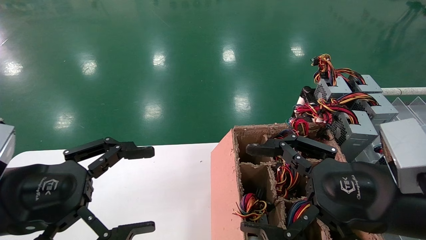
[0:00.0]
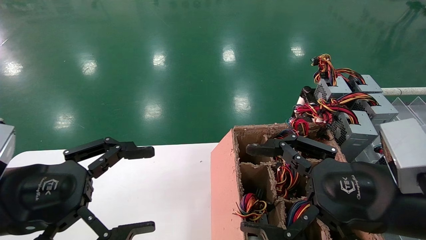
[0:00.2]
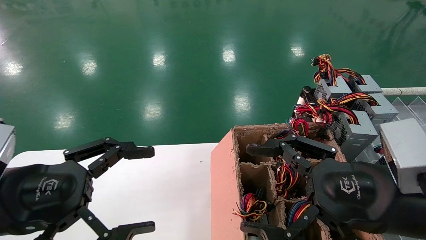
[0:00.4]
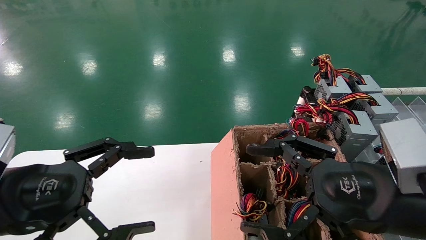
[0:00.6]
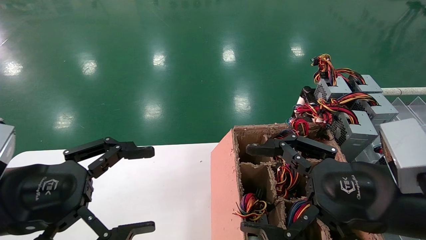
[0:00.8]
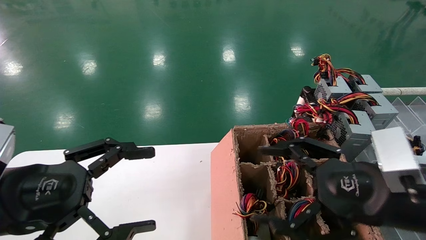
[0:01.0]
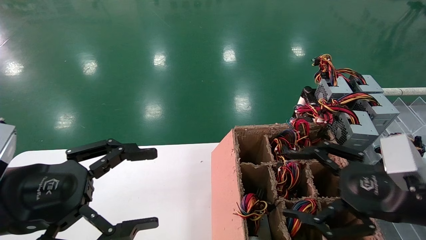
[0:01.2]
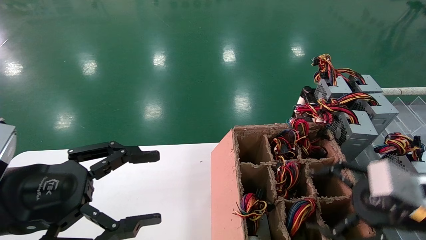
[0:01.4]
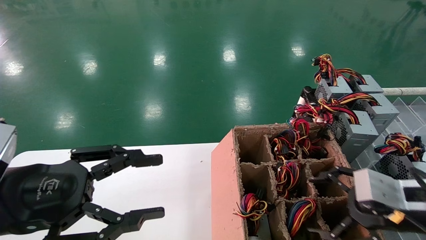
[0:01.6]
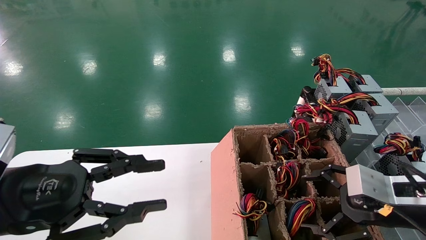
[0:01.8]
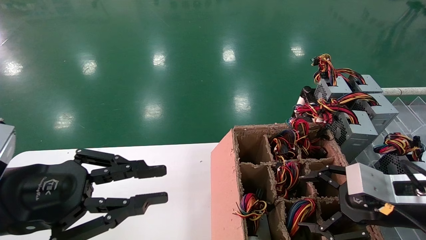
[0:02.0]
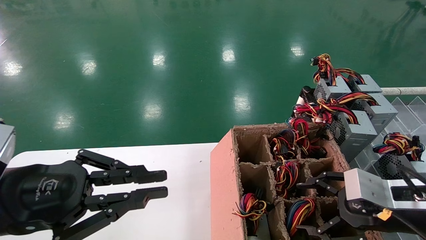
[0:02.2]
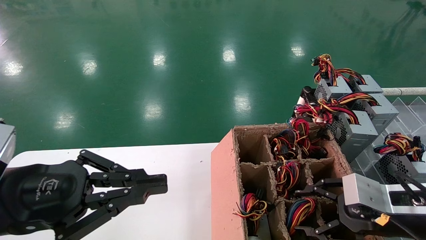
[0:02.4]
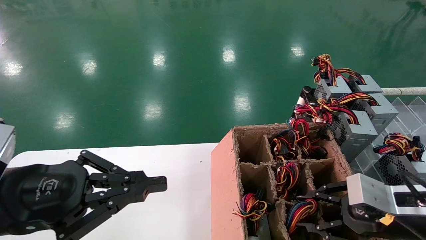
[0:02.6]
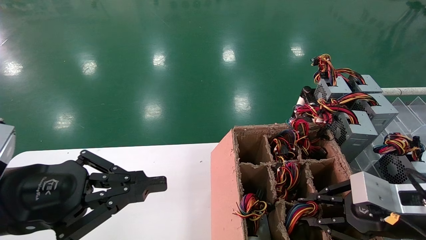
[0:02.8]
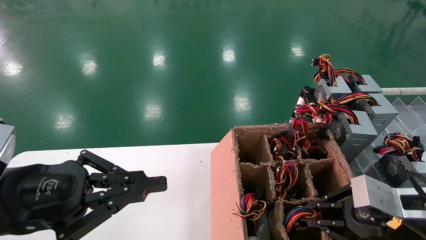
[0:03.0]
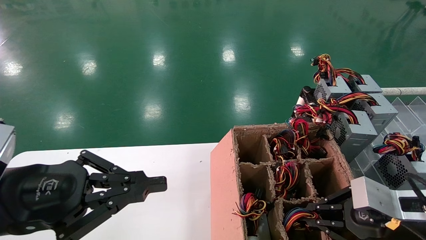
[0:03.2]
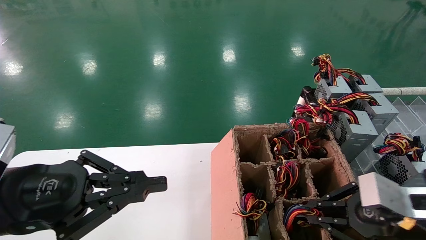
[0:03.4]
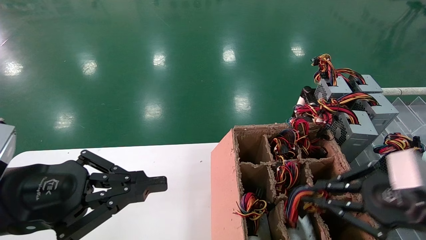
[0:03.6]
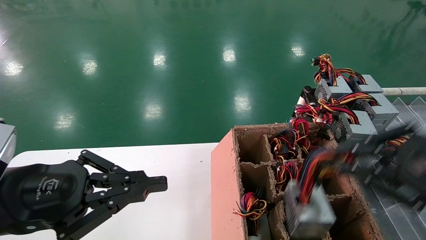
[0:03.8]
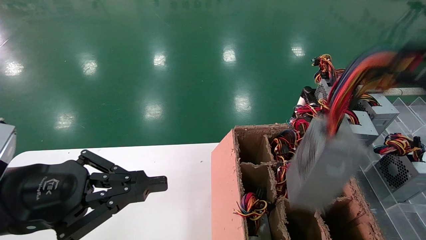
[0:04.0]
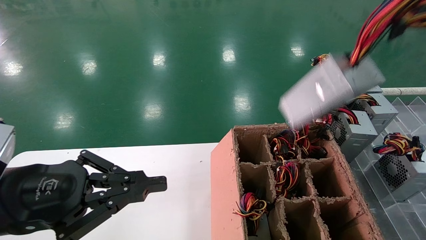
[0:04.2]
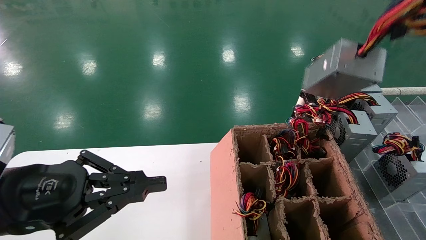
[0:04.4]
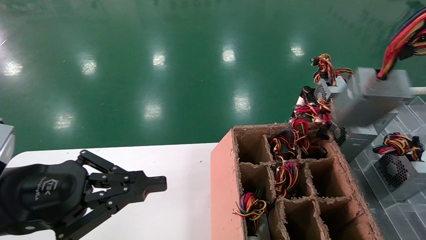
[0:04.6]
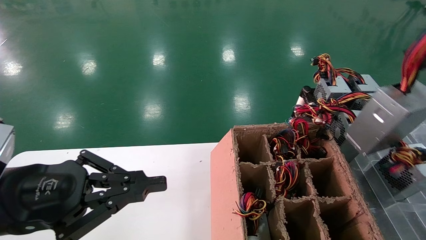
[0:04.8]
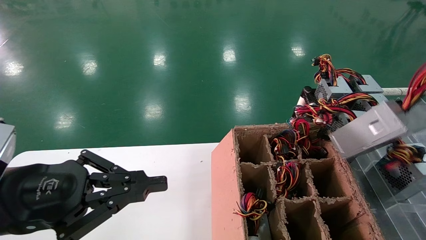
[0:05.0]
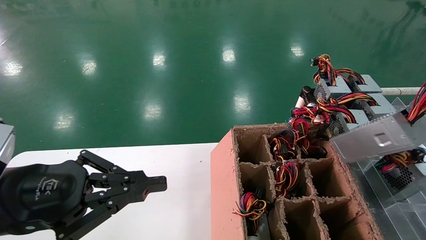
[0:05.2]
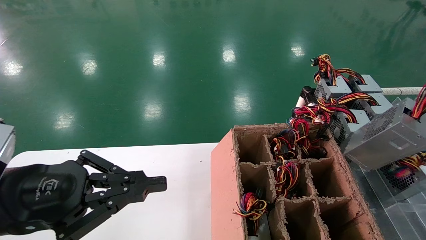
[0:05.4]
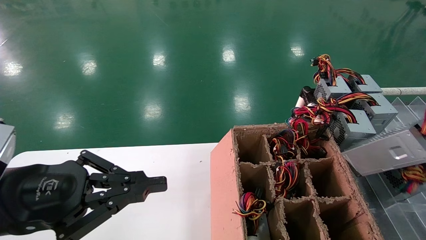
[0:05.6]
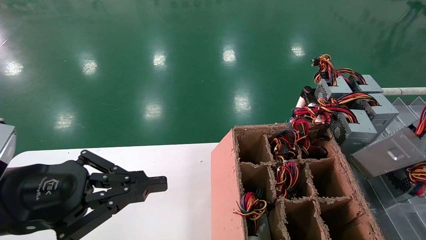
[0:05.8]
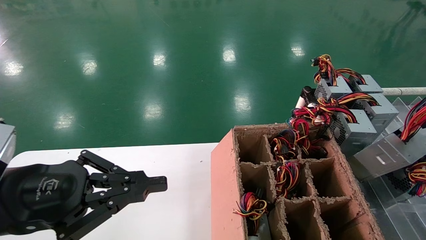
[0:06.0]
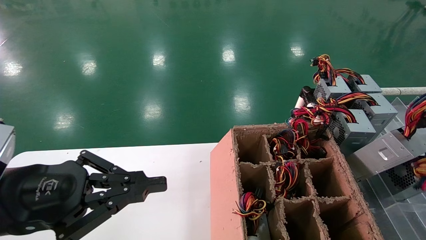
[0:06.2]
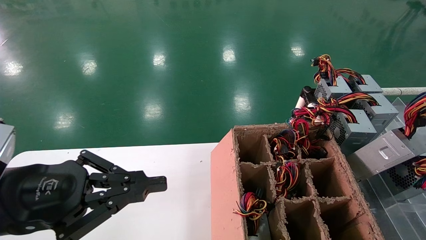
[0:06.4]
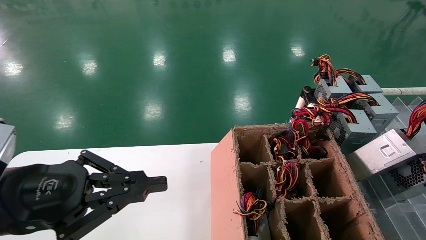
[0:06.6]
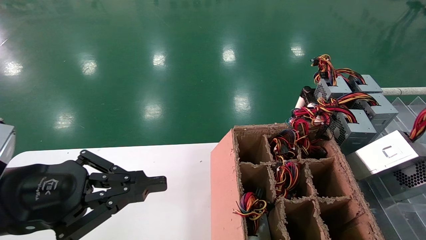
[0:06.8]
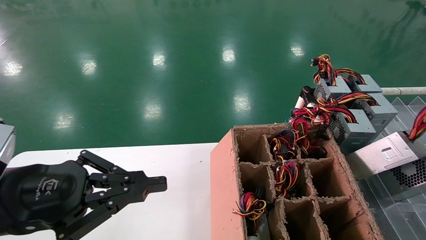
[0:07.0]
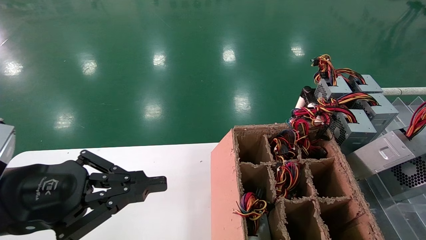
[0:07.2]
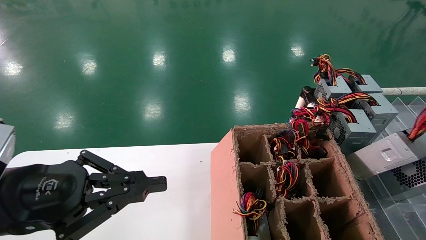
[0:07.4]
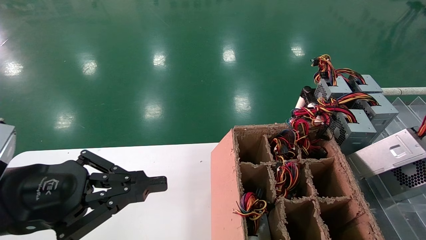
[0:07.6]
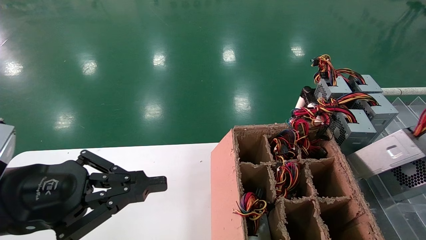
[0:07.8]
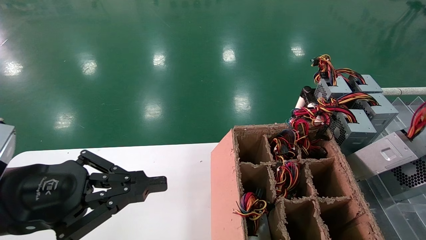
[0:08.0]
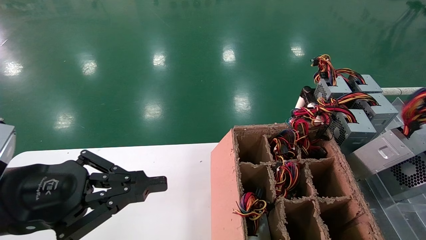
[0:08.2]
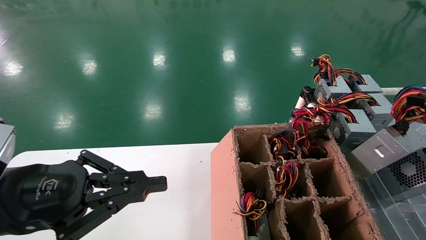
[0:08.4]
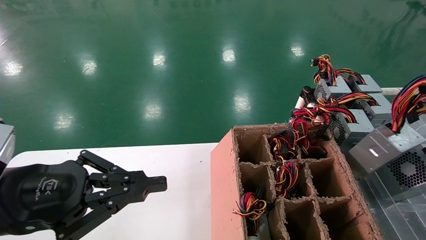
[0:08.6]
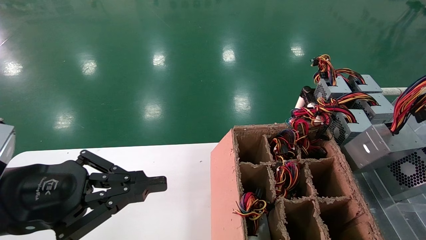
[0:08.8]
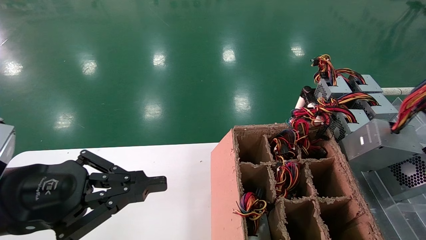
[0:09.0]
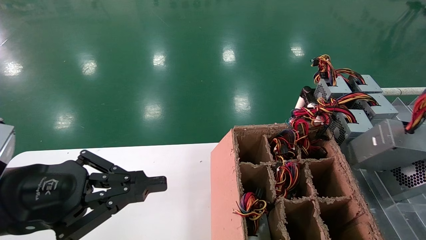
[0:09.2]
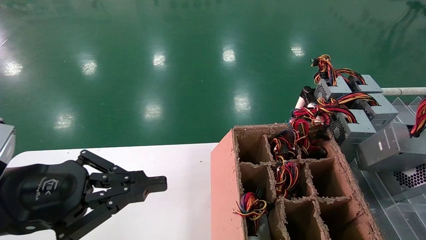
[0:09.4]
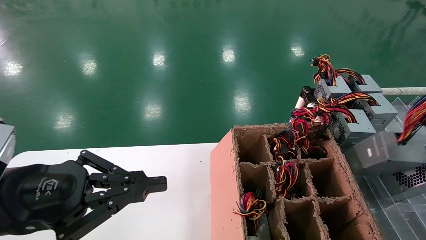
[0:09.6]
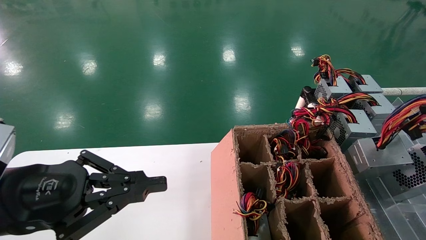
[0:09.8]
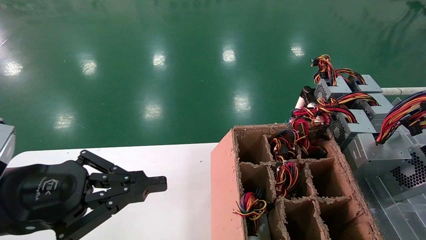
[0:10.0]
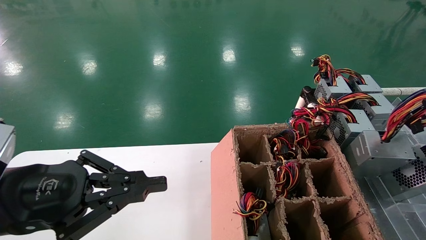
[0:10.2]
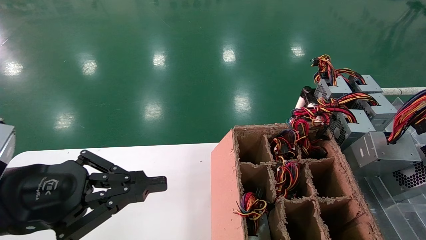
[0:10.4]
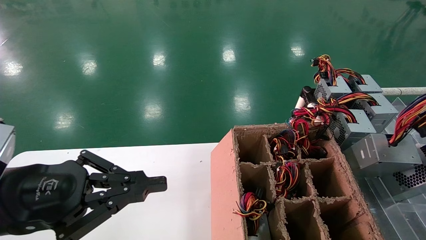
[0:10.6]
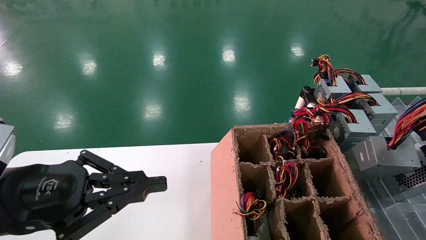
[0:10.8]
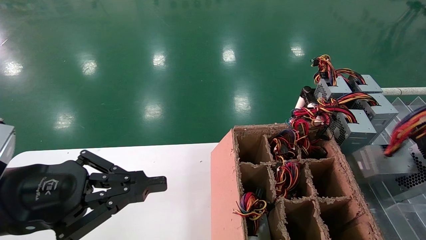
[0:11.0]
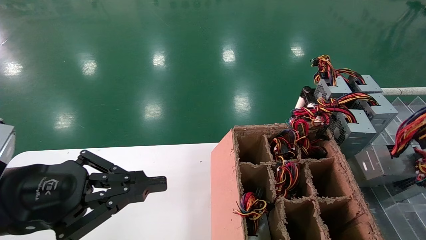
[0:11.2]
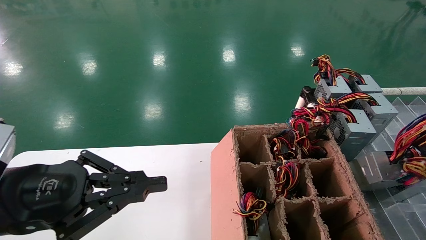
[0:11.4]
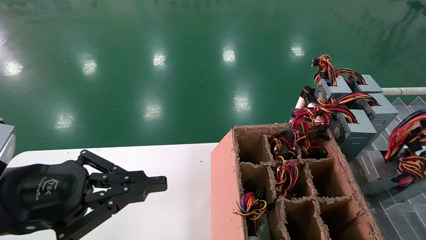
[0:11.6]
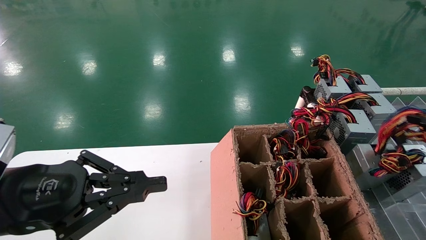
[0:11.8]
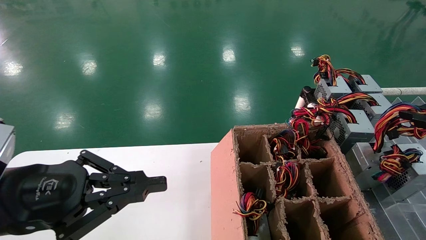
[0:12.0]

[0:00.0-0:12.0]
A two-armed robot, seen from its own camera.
Step, 0:01.2 to 0:03.2: Grab the main unit power supply from the containment box.
0:00.0 to 0:01.6: The right gripper travels to the right by about 10 cm.
0:01.6 to 0:03.0: The right gripper closes its fingers. Meanwhile the left gripper closes its fingers.
0:03.0 to 0:04.4: The right gripper goes some 25 cm upward and backward.
0:04.4 to 0:06.0: The right gripper travels to the right and downward by some 10 cm.
0:06.0 to 0:07.6: The grippers stay close to where they were, moving slightly.
0:07.6 to 0:09.0: The right gripper heads to the left, covering about 5 cm.
0:09.0 to 0:10.4: There are only small adjustments of the grippers.
0:10.4 to 0:12.0: The right gripper travels forward by some 5 cm.

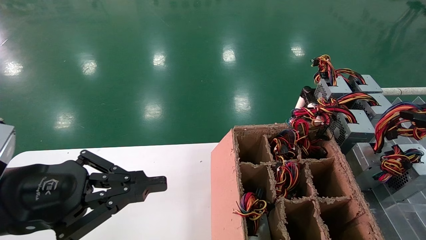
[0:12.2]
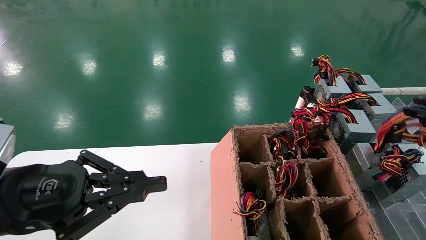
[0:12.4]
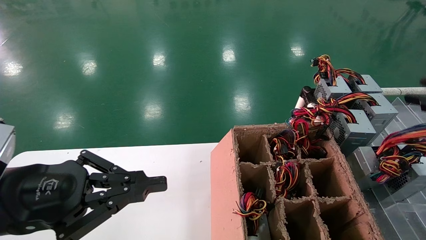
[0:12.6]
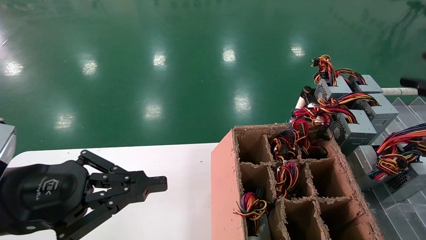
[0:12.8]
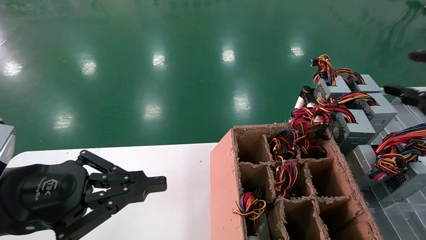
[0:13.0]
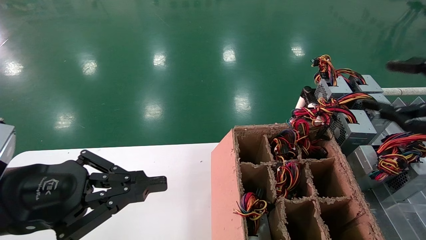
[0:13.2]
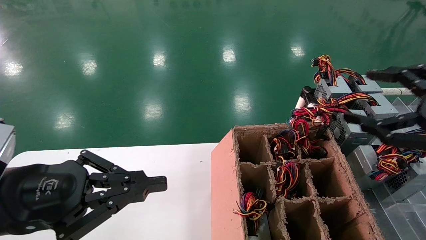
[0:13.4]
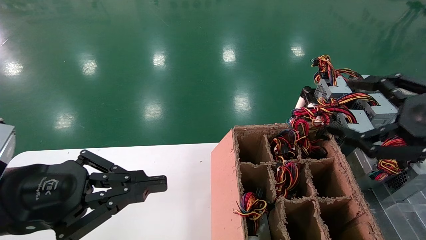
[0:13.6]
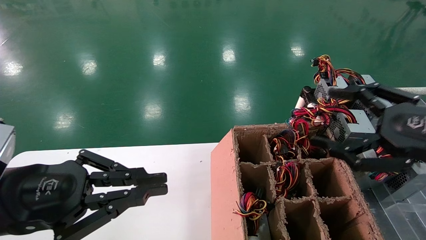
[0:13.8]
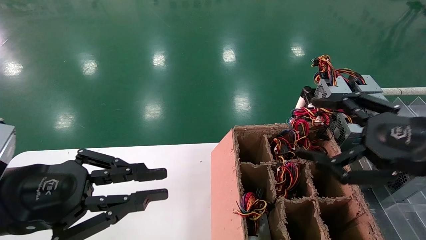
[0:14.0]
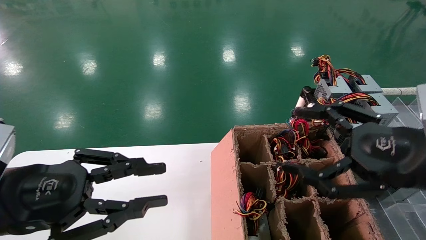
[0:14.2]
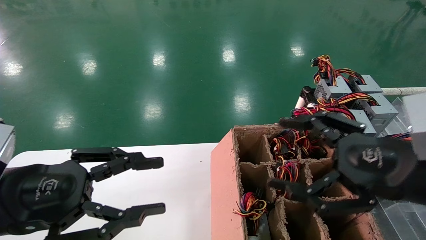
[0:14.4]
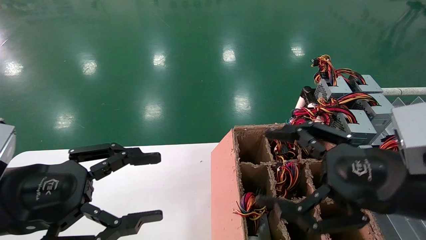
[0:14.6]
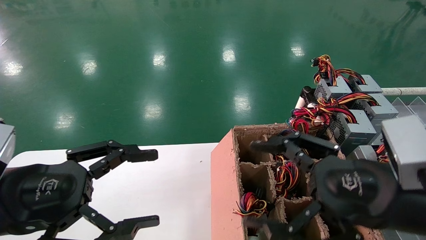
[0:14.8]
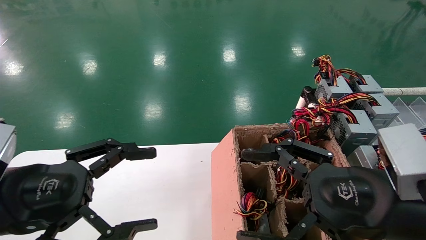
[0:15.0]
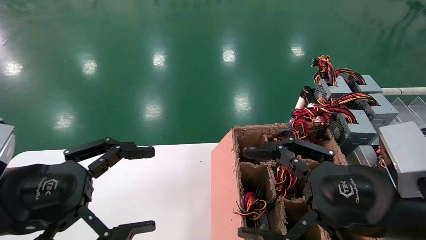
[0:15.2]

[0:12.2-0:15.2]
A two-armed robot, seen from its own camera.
0:12.2 to 0:13.8: The right gripper goes roughly 15 cm to the left, and opens.
0:13.8 to 0:15.2: The right gripper travels to the left and downward by about 10 cm; the left gripper opens its fingers.
